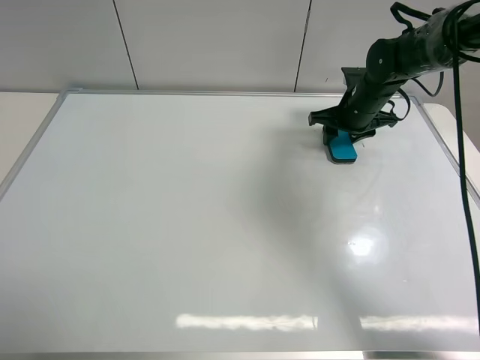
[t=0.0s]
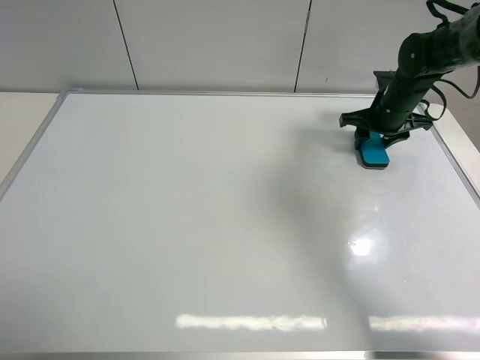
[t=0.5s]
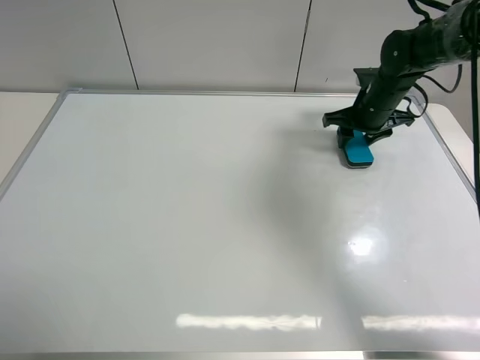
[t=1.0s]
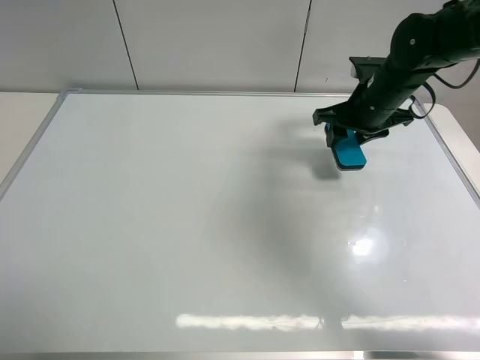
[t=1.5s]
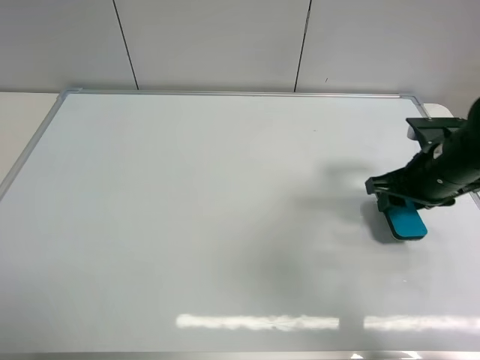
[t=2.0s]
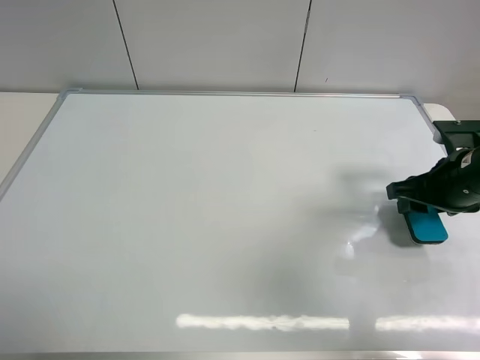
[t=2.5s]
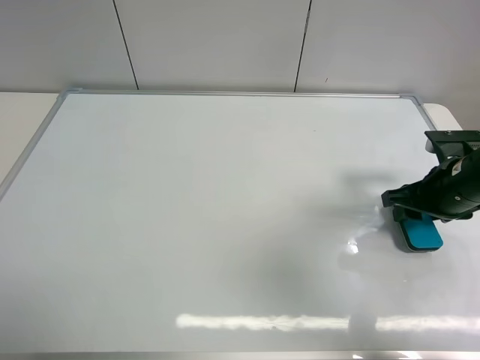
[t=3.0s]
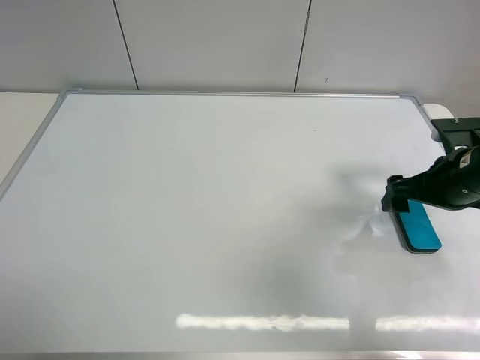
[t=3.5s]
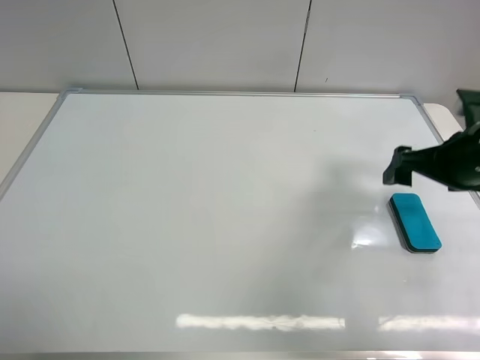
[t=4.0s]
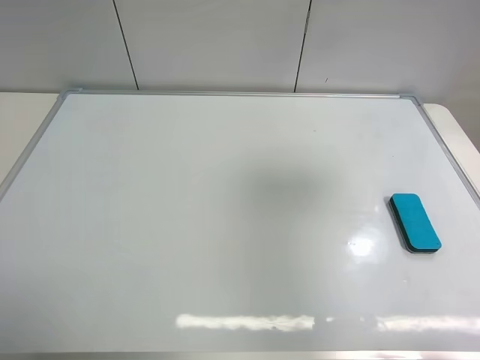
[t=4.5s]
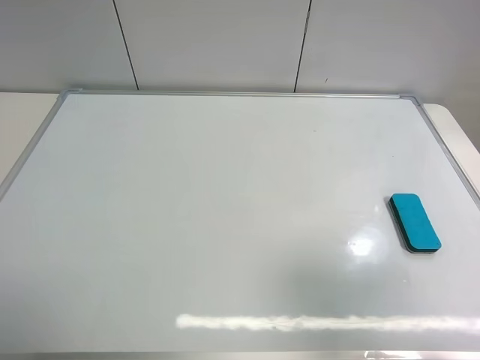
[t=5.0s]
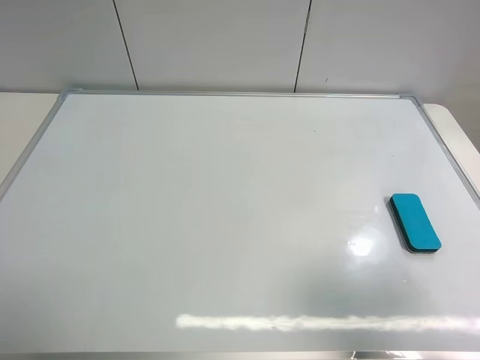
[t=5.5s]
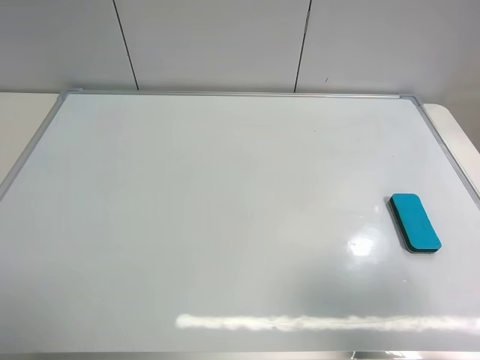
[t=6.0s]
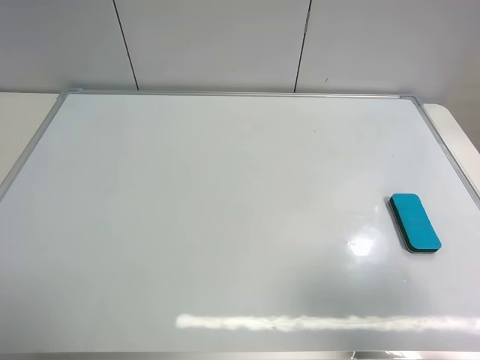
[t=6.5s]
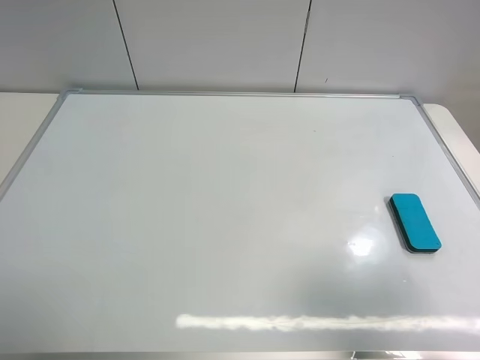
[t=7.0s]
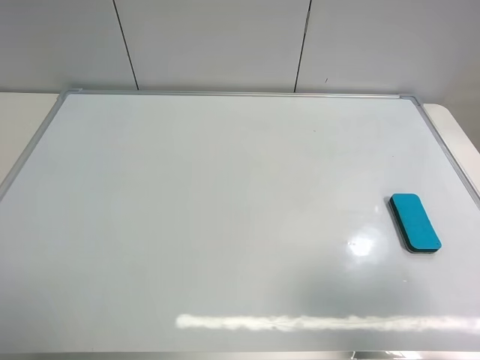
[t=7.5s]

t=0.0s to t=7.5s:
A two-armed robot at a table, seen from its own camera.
Task of the whole recording: use the left gripper to place the eraser in the right, use the right gripper to pick up the eraser, wipe the notes on the whiteboard clean, and then put it down.
Step, t=1.5s to t=3.0s: Place the board eraser on the right side of board with right gripper.
t=0.0s to t=2.0s: The right gripper heads backward, covering some 20 cm.
t=2.0s to t=4.0s: The right gripper opens up.
t=4.0s to t=5.5s: The right gripper moves backward, roughly 25 cm.
t=5.5s to t=7.5s: Both grippers stay about where they are.
